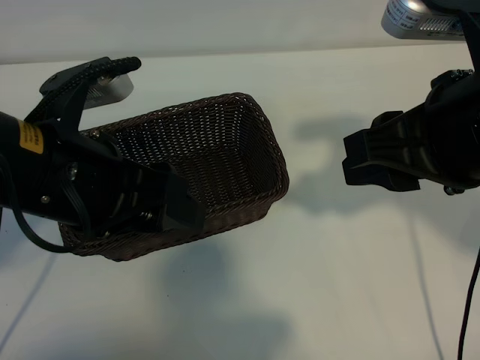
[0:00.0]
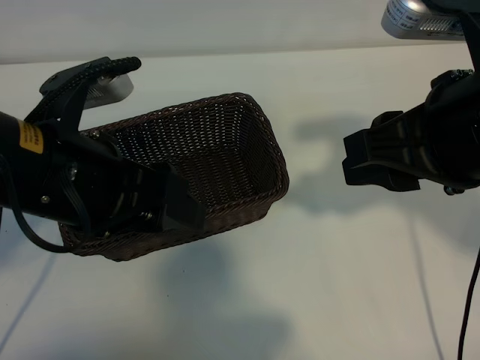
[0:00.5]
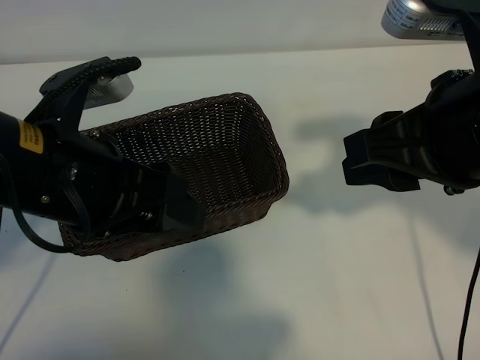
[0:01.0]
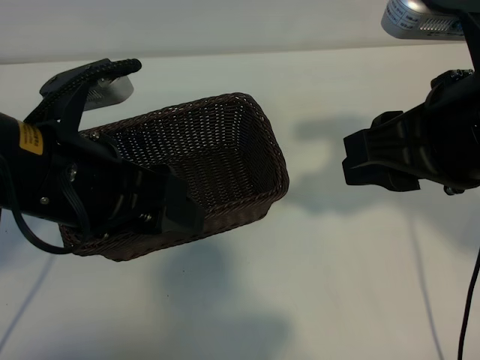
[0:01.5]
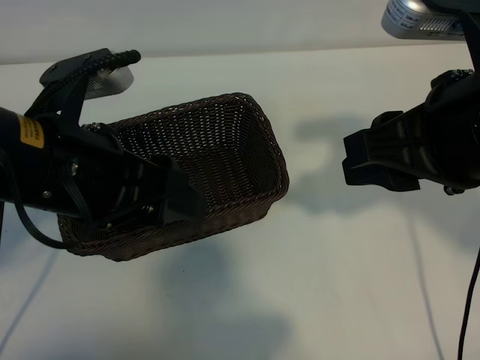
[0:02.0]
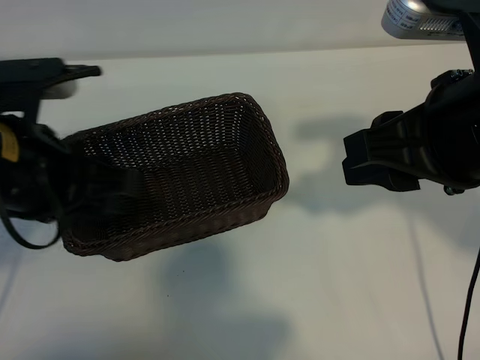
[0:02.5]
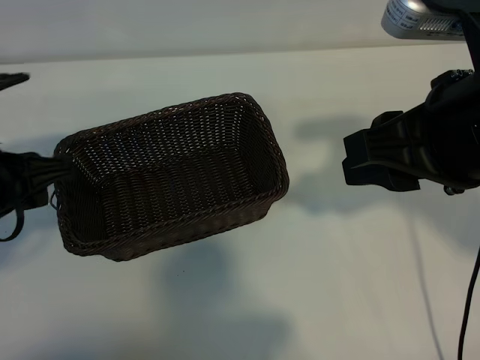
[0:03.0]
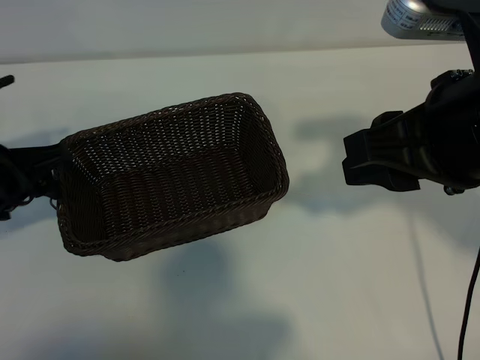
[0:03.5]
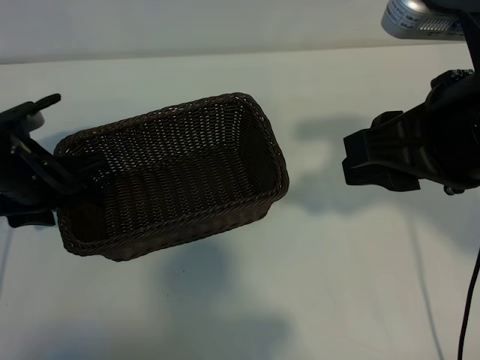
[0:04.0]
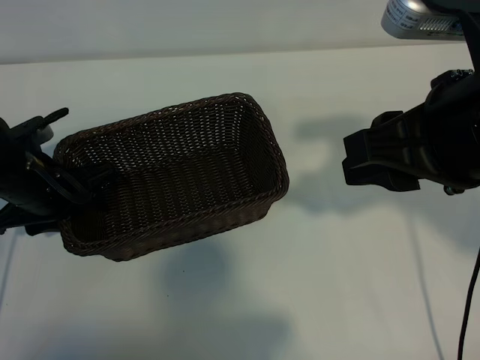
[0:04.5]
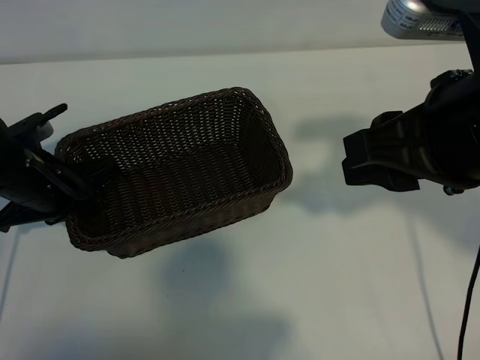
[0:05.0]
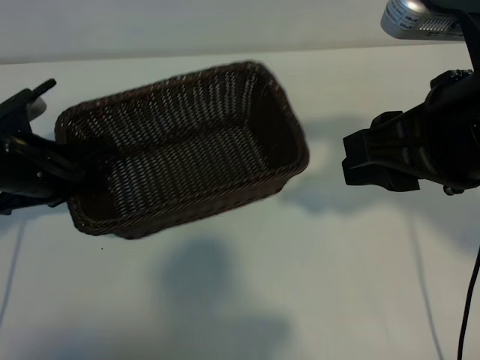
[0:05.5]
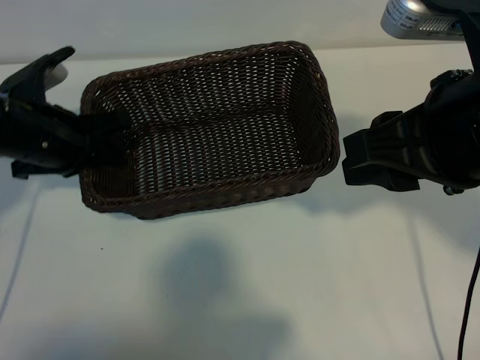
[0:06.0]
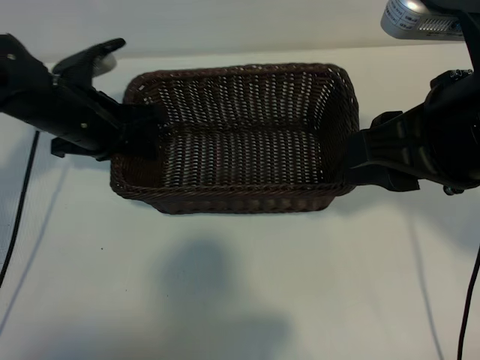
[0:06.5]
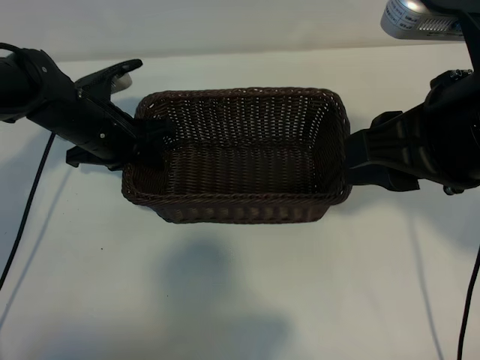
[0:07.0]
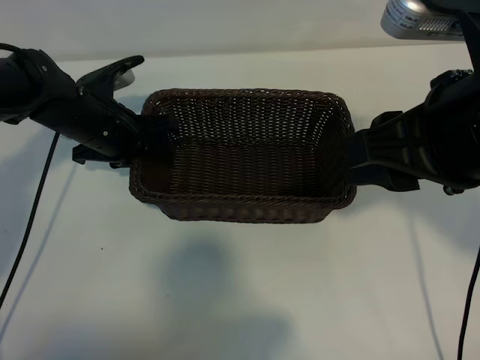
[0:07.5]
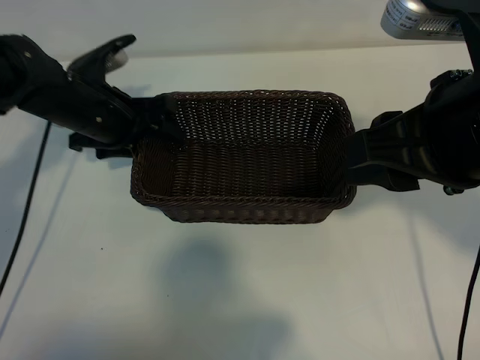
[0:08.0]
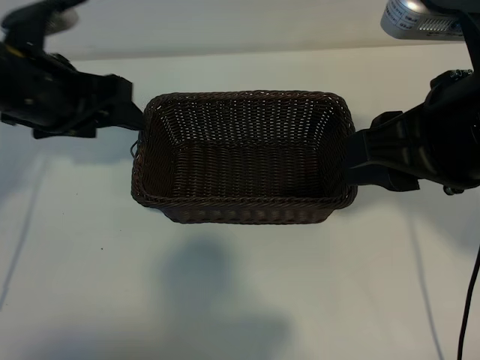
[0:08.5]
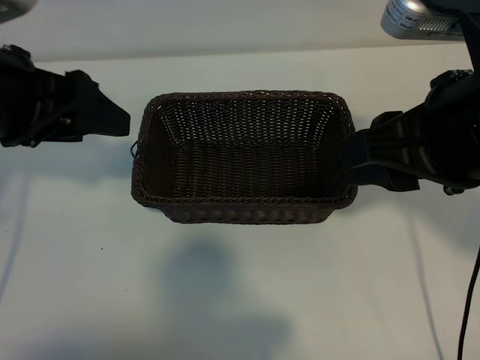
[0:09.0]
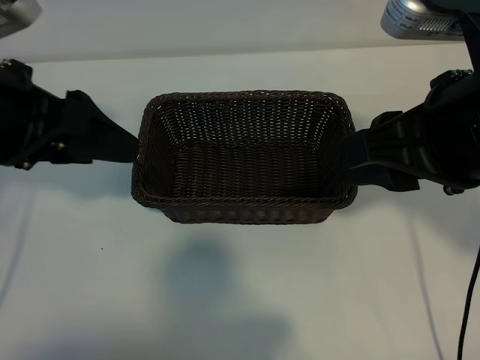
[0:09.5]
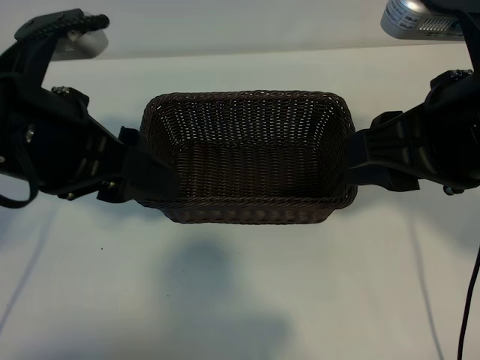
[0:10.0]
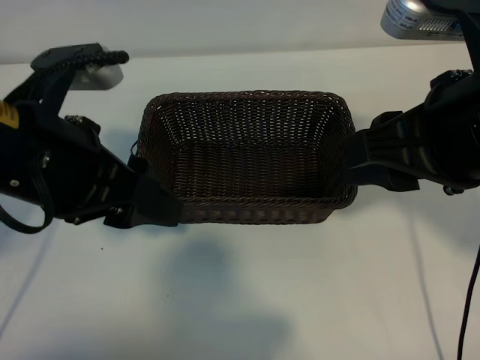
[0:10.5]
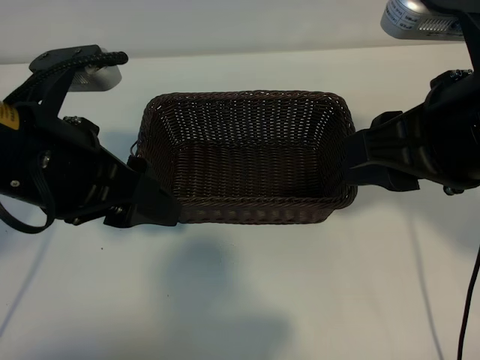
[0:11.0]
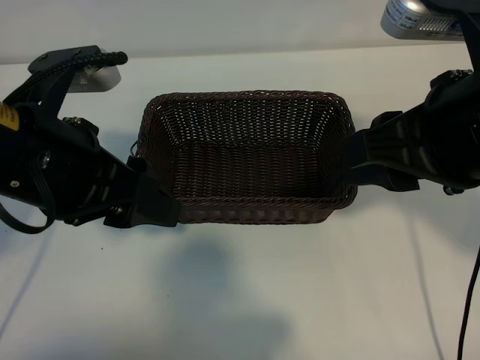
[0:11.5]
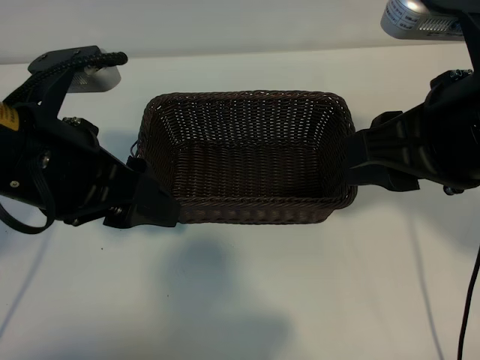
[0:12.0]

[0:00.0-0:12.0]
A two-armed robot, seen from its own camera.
Task of the whole recording: pick up the peach and put it into the basket.
Step, 0:02.0 to 0:04.5: Grasp the basket with left gripper.
Step, 0:05.0 to 0:08.0: Place the basket in the center of view with left gripper.

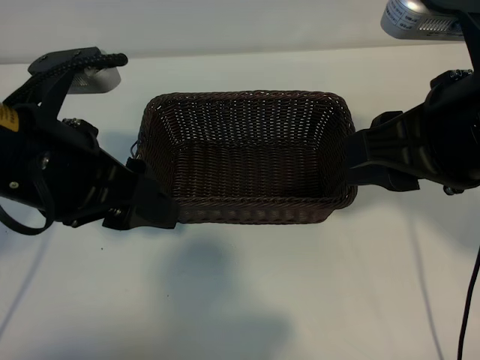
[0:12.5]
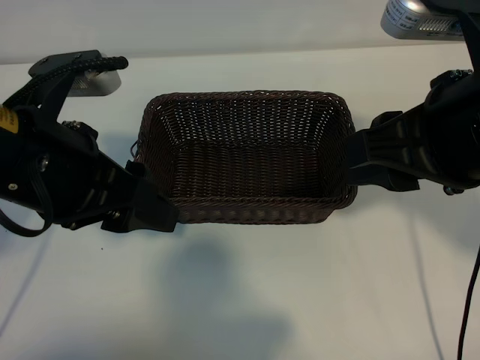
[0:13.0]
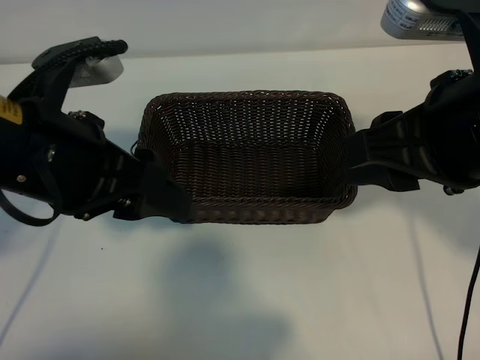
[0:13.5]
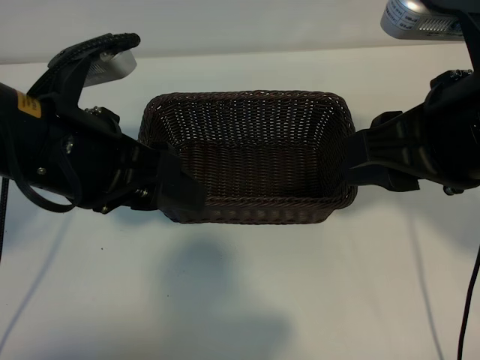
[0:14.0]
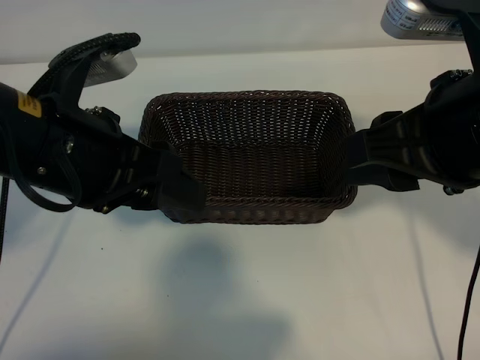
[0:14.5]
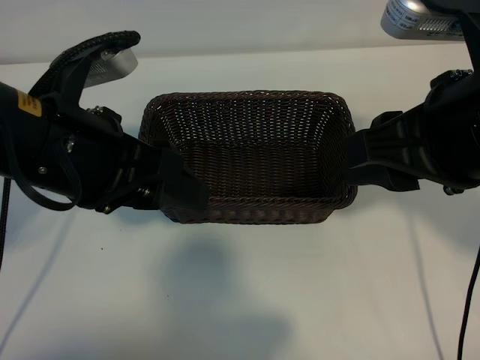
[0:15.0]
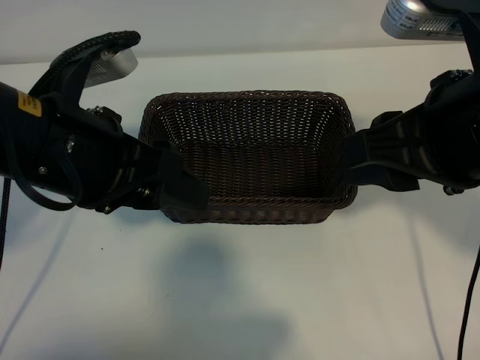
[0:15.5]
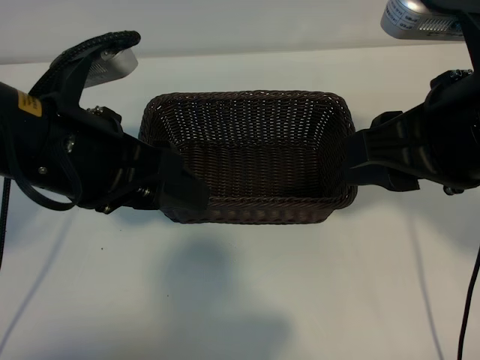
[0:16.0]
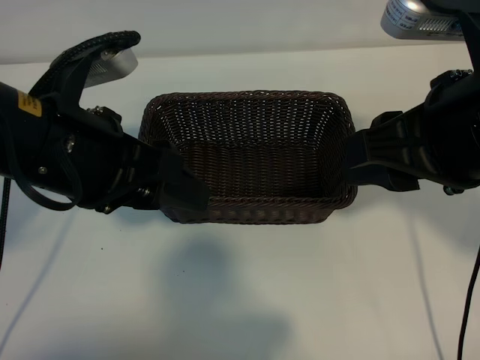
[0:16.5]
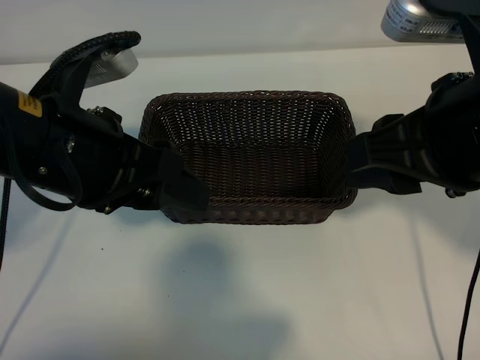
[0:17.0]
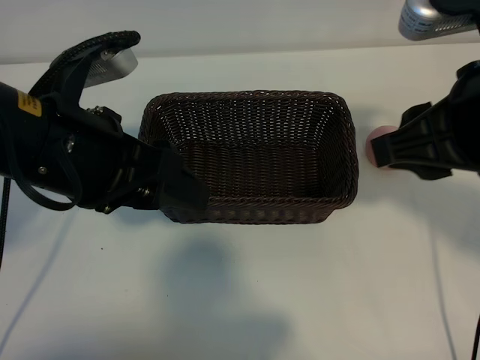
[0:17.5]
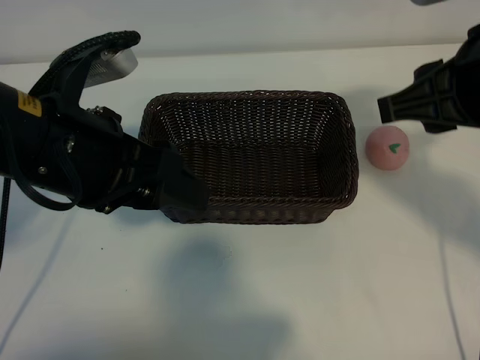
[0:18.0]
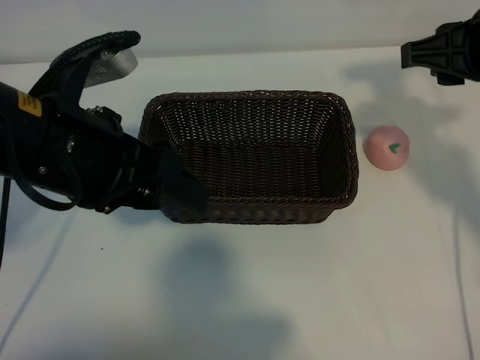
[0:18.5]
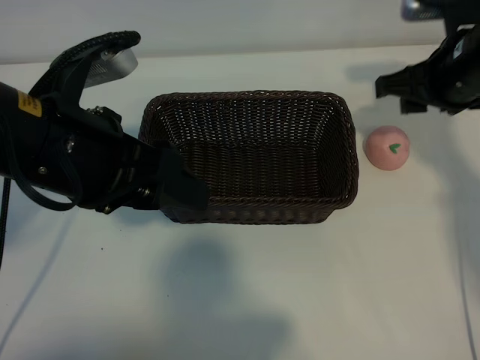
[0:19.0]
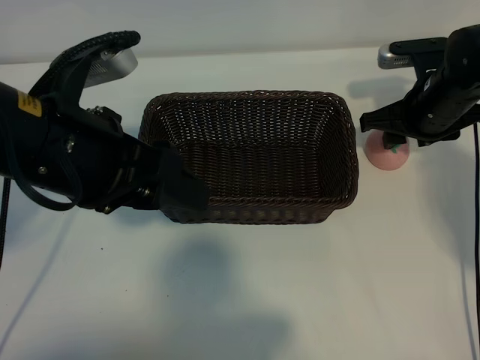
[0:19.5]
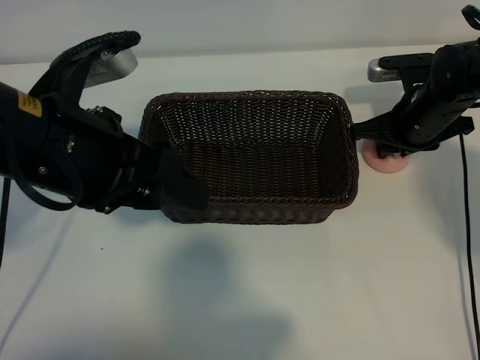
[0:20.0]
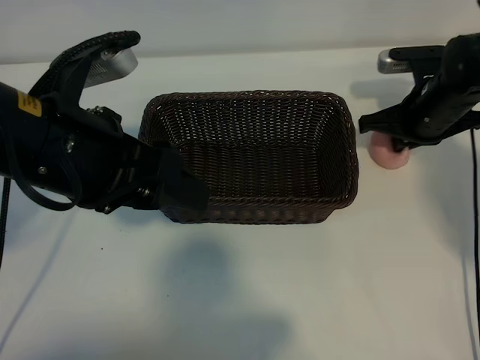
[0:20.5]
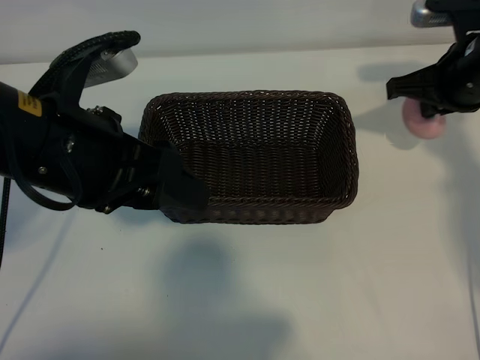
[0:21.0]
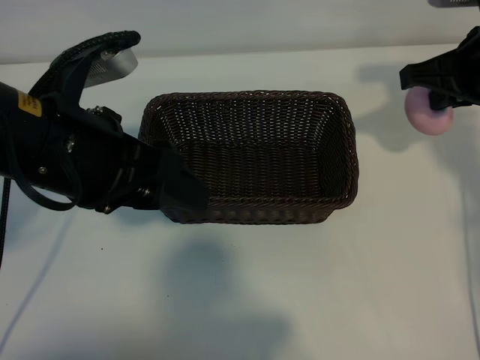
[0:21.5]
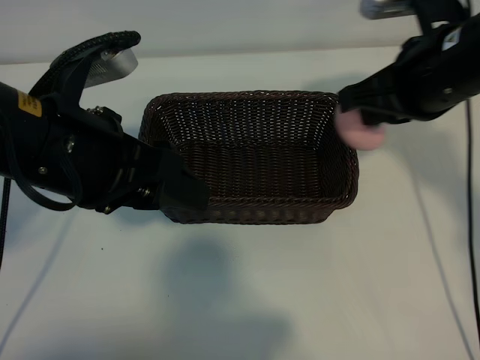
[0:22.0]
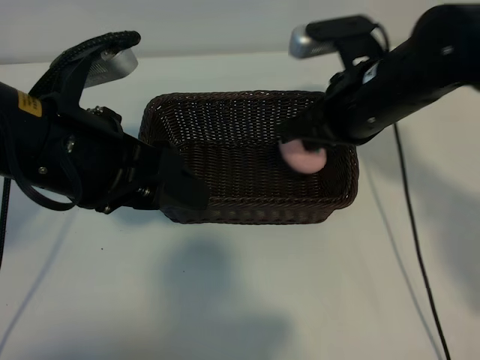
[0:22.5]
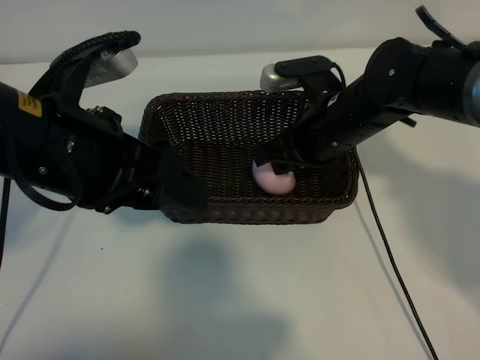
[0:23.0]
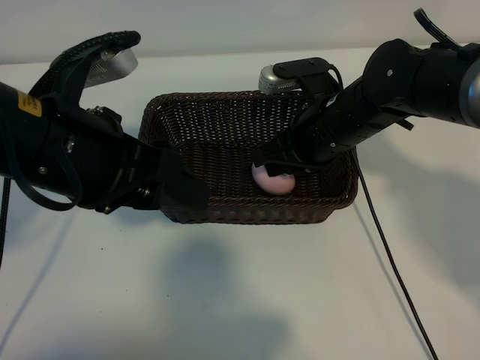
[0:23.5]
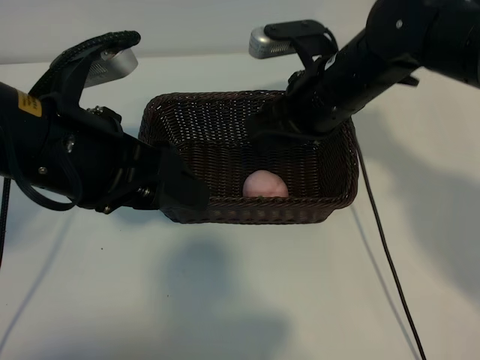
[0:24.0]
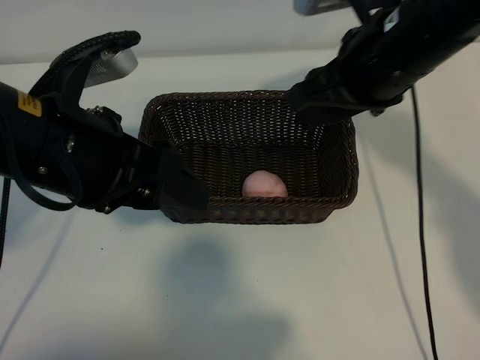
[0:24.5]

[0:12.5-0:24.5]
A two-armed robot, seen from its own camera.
Task of the whole recording: pick up the peach and put it into the basket.
Step, 0:17.0 to 0:20.0: Grasp the peach with right gripper.
Step, 0:20.5 to 0:23.5: Place the peach in the basket with right gripper.

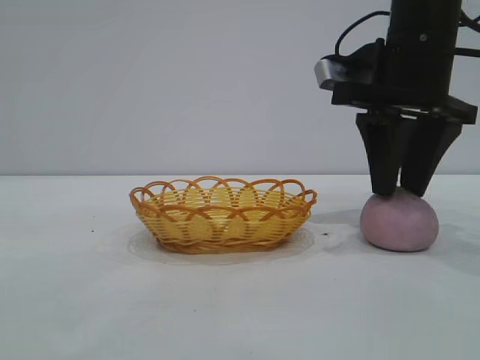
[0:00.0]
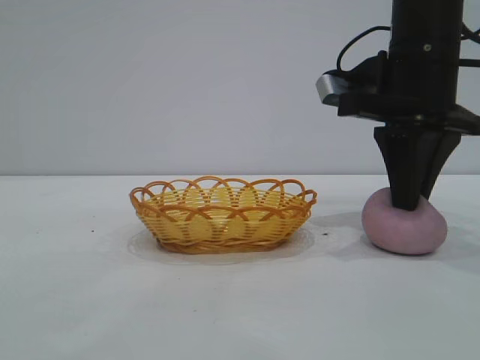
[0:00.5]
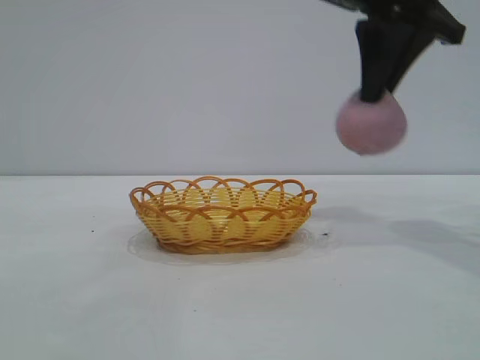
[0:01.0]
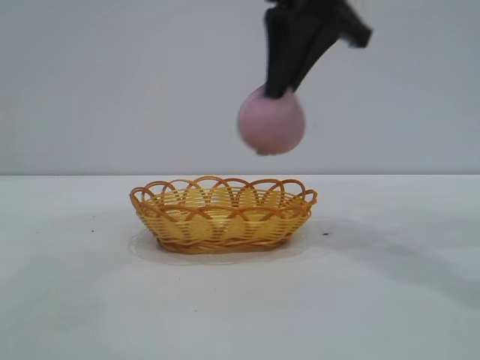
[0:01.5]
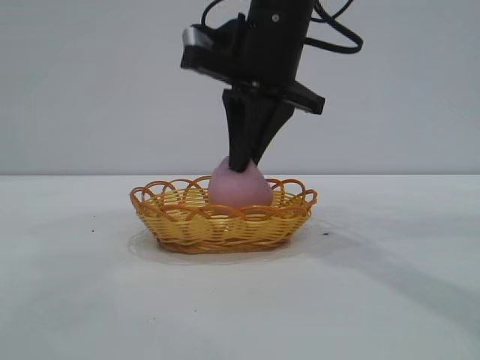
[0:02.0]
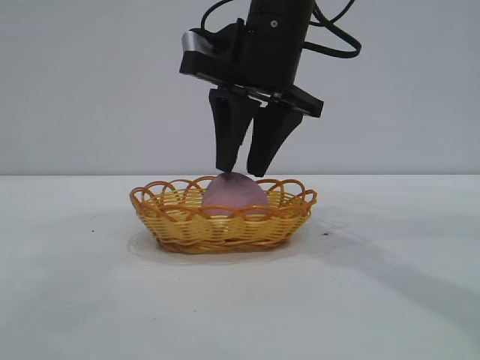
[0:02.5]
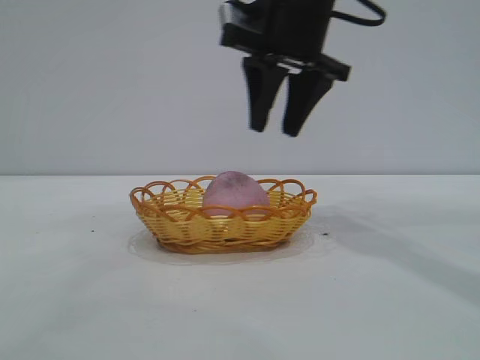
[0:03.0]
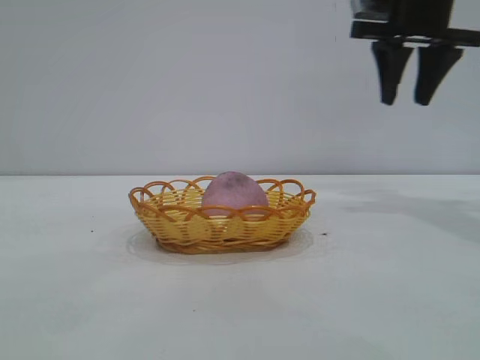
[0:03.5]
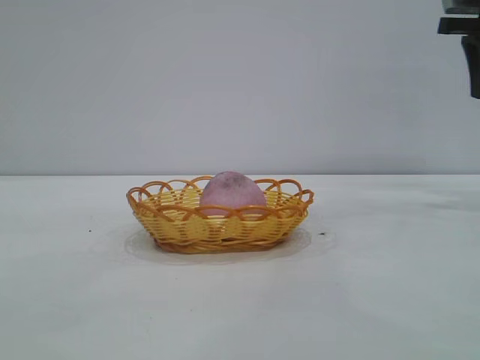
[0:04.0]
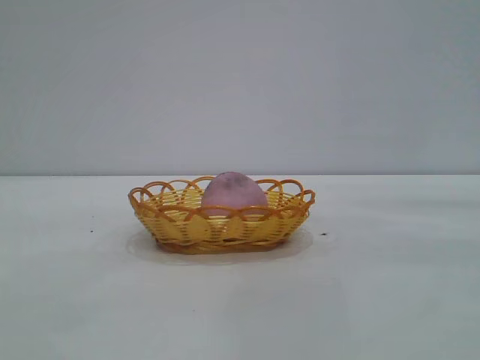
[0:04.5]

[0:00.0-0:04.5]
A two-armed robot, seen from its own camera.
Task of the whole recording: pick up the peach and put it into the basket.
Step, 0:01.0 to 0:03.0: place the peach into the basket.
